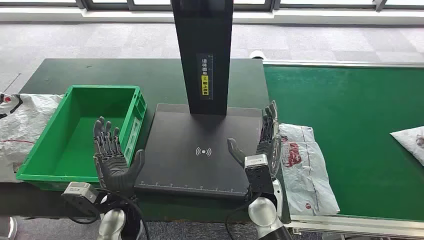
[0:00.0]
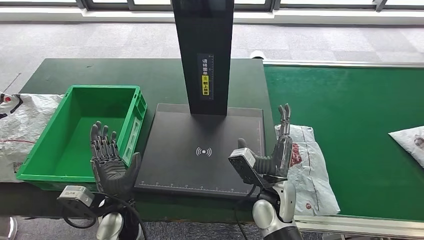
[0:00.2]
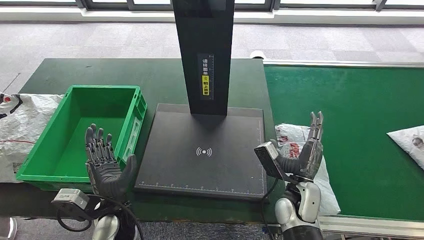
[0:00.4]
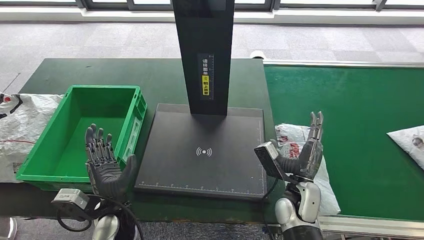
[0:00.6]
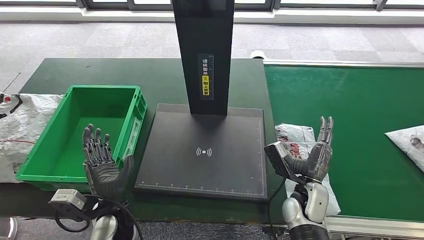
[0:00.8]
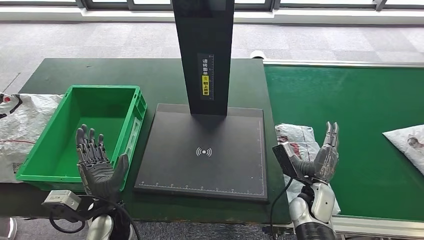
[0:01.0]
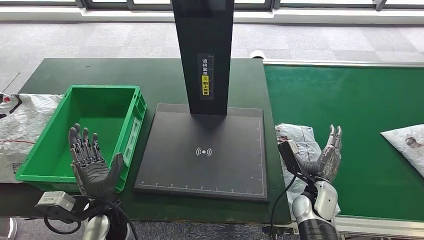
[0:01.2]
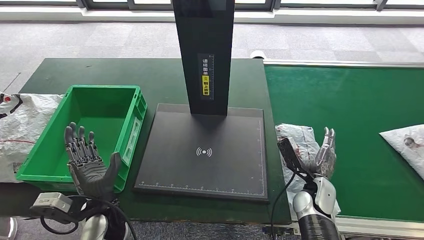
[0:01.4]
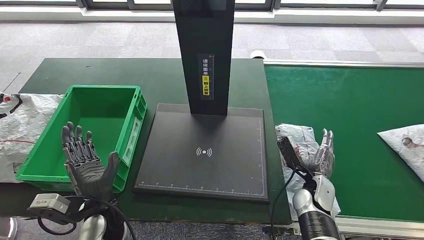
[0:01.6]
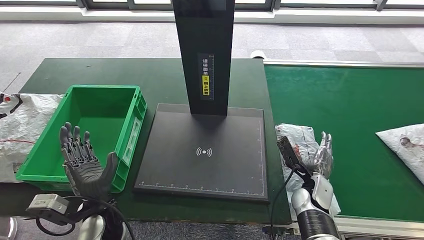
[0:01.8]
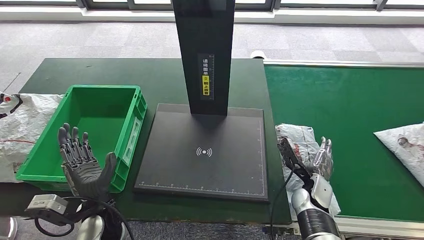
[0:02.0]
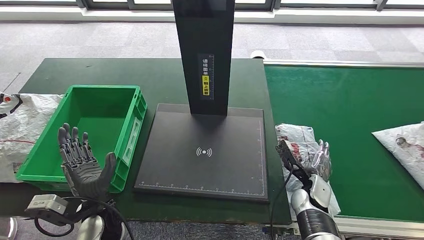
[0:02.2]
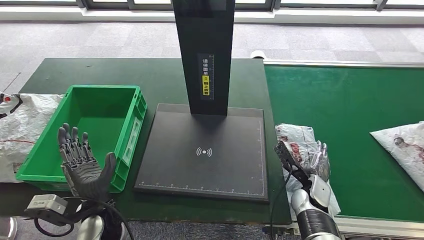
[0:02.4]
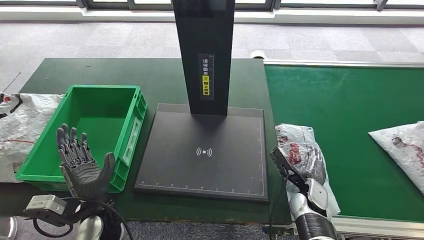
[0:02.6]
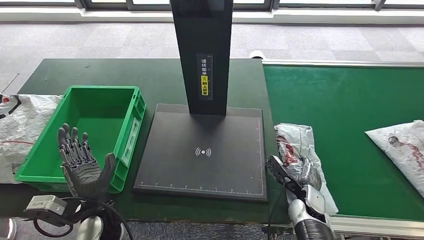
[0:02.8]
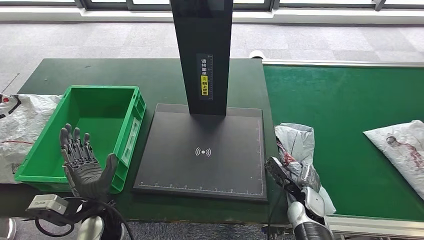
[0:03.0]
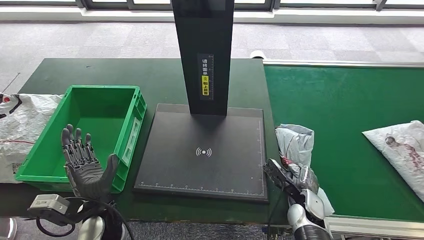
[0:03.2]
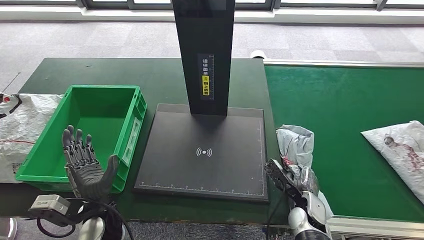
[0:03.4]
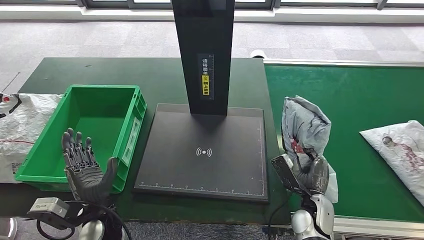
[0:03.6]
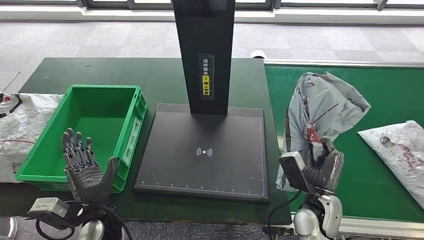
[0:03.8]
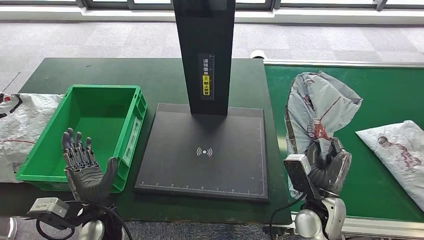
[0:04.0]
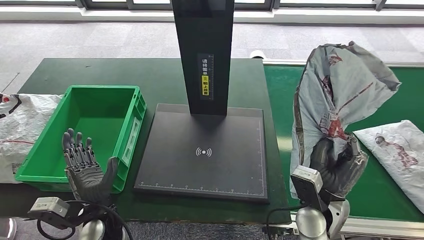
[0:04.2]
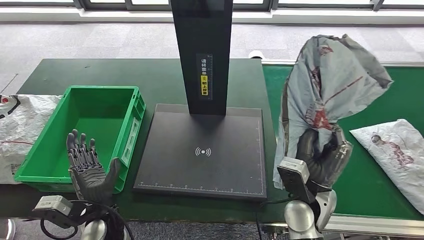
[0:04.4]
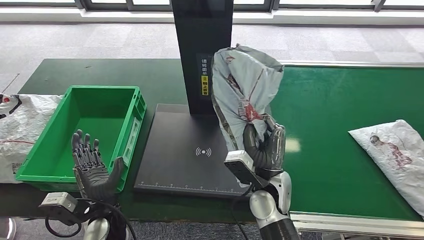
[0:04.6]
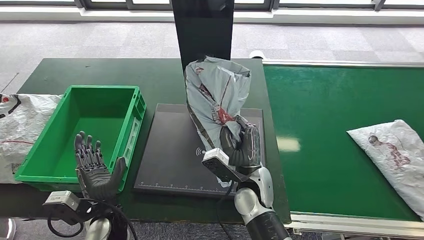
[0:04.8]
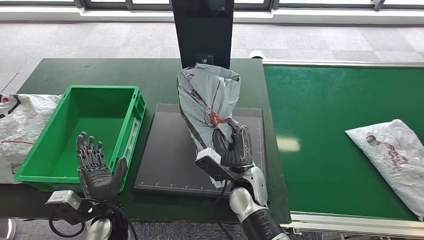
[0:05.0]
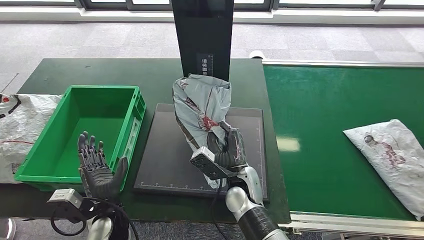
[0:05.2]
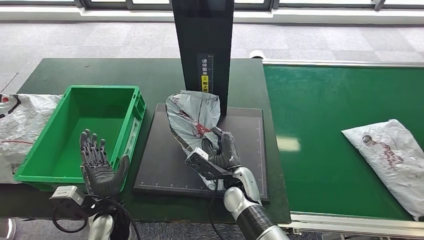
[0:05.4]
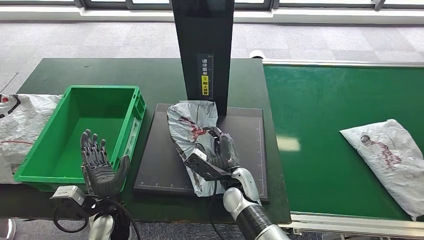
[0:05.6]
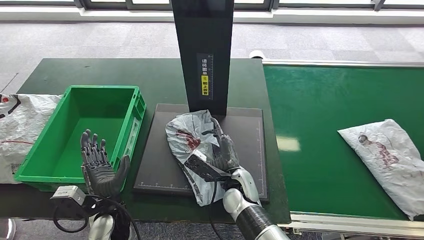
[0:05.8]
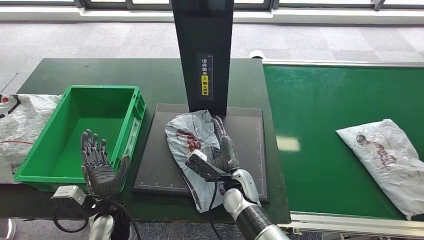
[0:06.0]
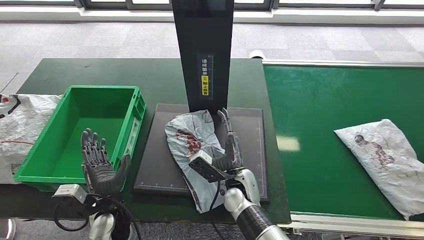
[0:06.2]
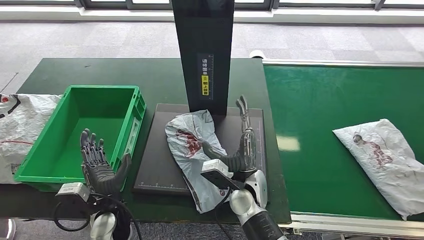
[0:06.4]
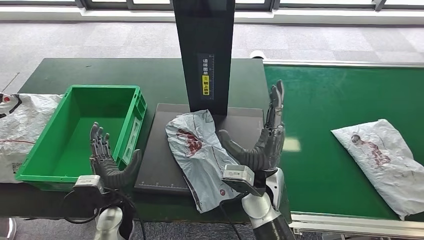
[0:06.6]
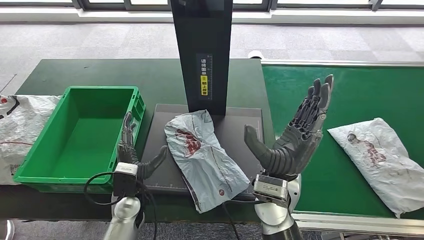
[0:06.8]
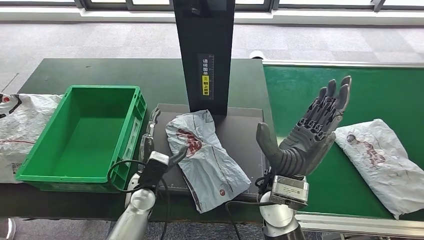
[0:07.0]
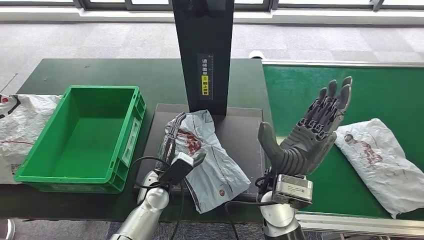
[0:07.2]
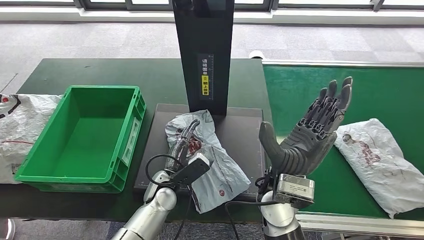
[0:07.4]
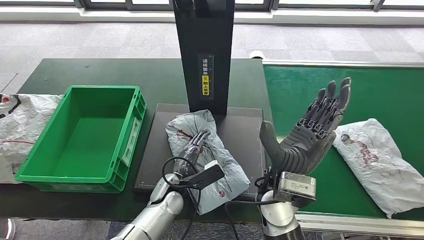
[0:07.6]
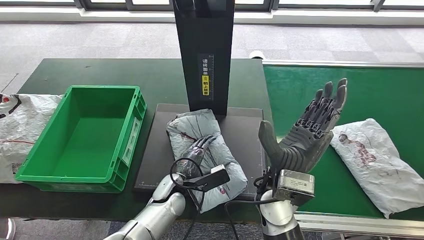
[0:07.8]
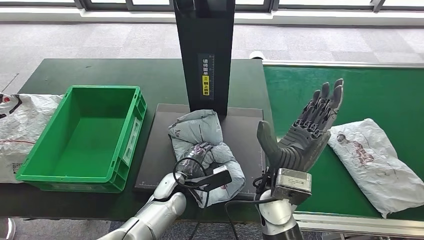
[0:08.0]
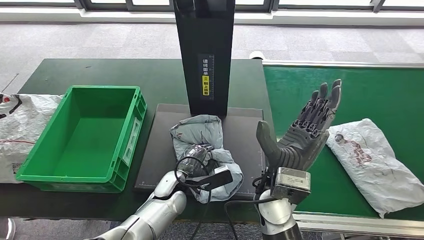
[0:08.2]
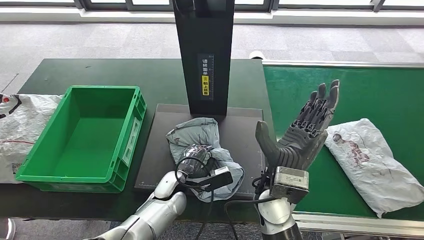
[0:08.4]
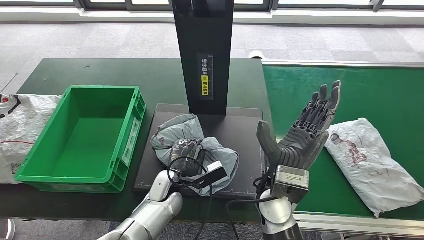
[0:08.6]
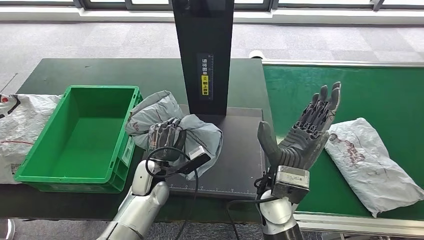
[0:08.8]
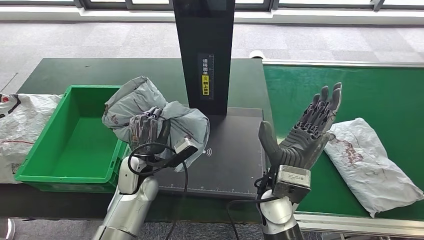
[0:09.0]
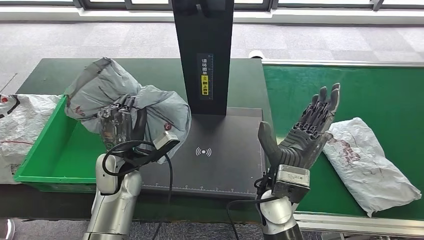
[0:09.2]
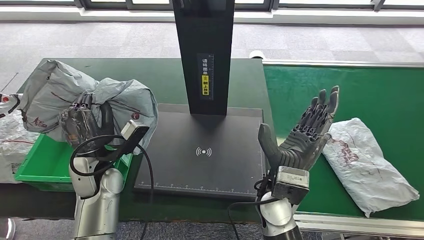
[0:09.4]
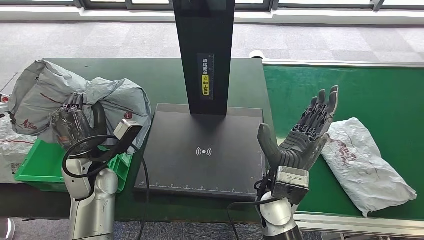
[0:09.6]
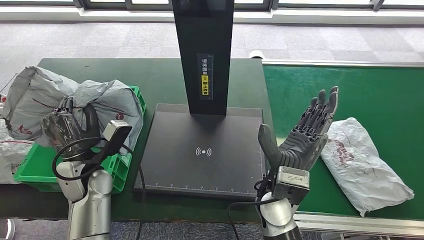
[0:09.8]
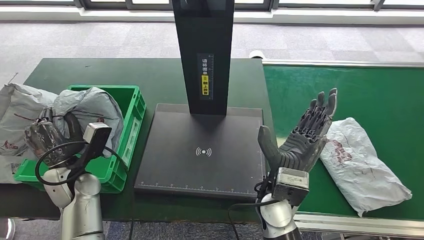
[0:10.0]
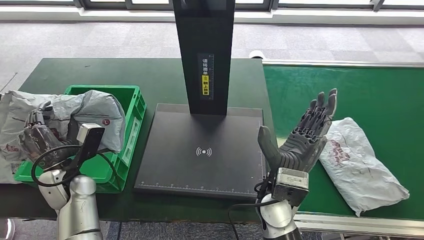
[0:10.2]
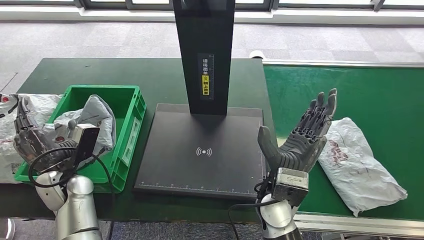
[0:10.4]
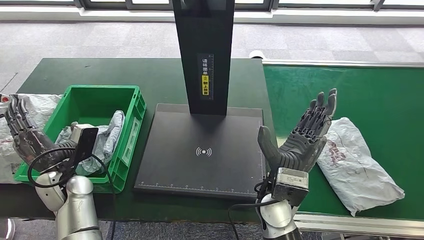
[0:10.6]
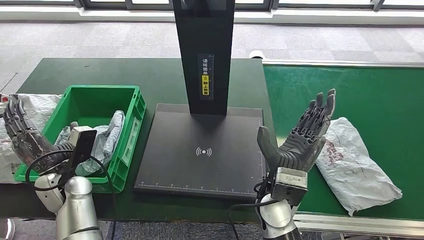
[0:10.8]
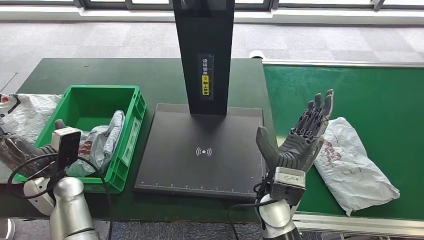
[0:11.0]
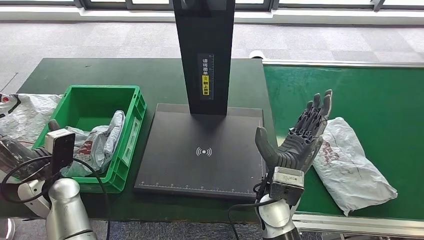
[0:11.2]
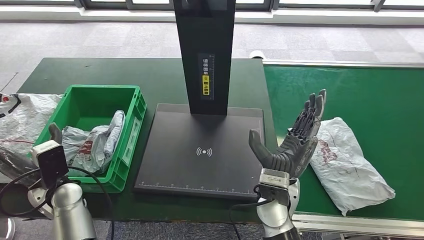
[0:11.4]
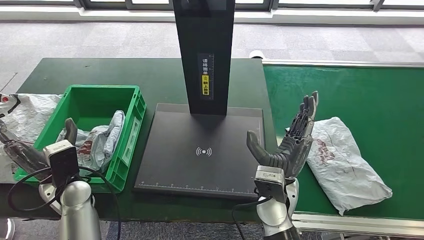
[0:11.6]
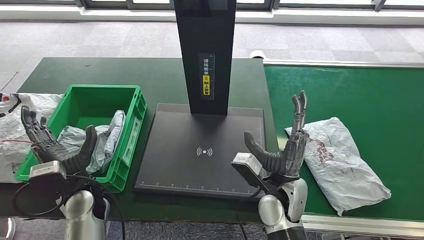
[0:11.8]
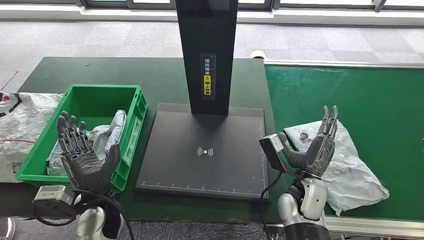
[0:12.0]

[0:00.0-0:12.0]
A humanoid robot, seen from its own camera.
Step, 0:00.0 to 0:04.0: Take the parcel off the conveyor belt.
Step, 0:04.4 to 0:06.8: Place the parcel onto the inbound machine.
Step, 0:07.0 to 0:09.0: Pick up the parcel from the inbound machine.
Step, 0:09.2 to 0:11.4: Put the parcel inside the courier box.
0:01.6 to 0:03.0: The right hand moves about 5 cm.
0:03.0 to 0:04.4: The right hand goes approximately 15 cm upward.
0:06.0 to 0:07.6: The left hand heads to the right and forward, covering some 15 cm, while the right hand travels upward and to the right by roughly 15 cm.
0:07.6 to 0:09.0: The left hand heads upward and to the left, covering some 10 cm.

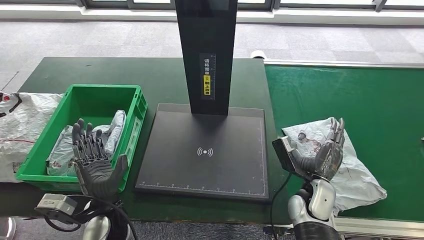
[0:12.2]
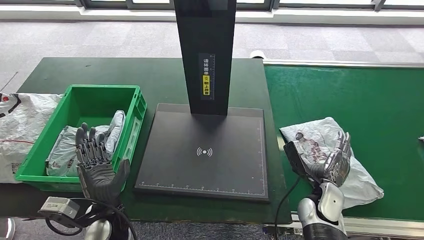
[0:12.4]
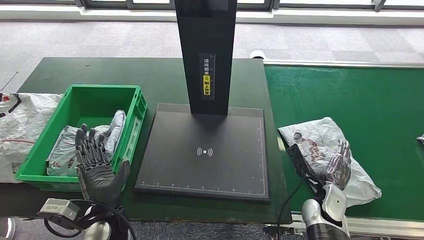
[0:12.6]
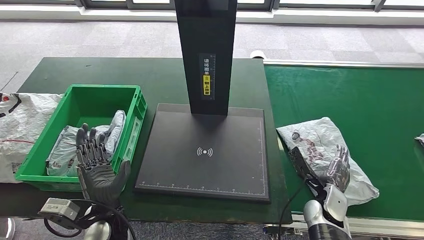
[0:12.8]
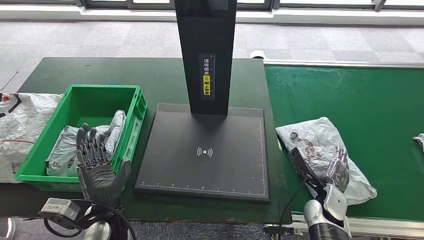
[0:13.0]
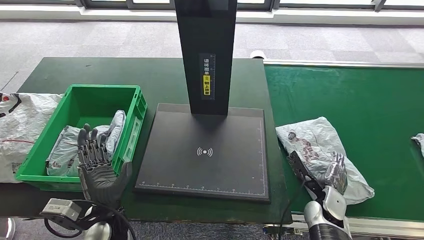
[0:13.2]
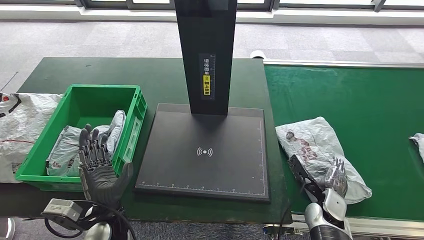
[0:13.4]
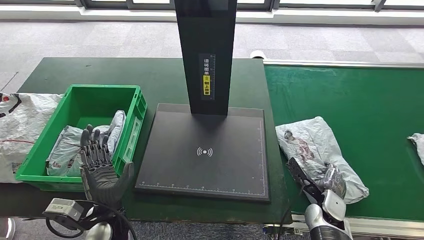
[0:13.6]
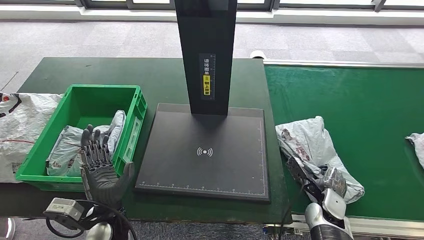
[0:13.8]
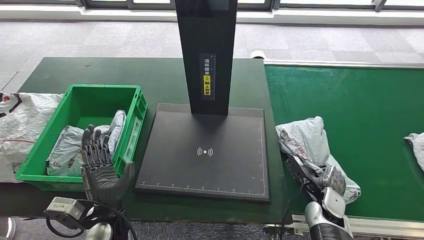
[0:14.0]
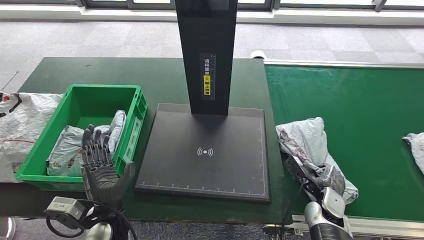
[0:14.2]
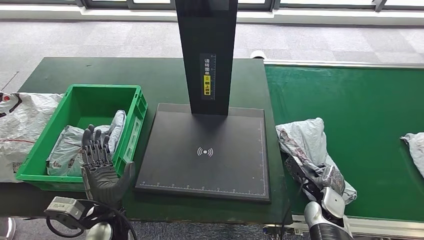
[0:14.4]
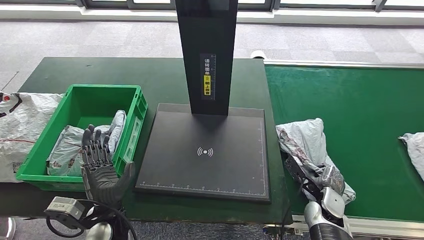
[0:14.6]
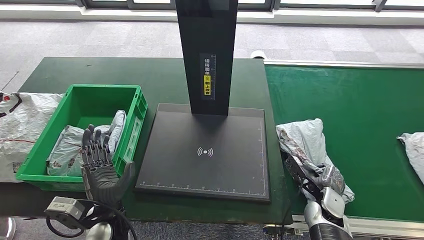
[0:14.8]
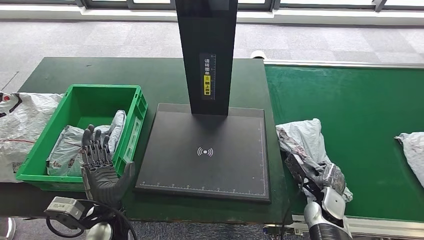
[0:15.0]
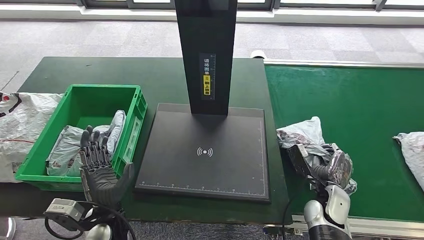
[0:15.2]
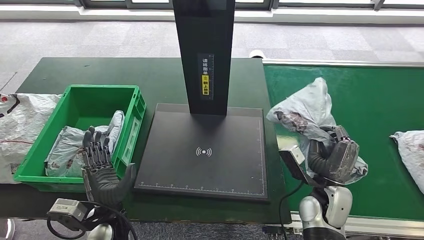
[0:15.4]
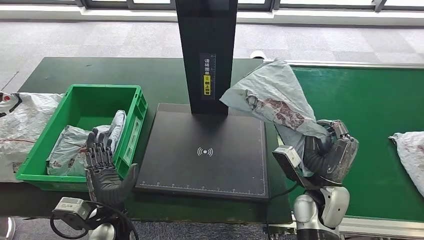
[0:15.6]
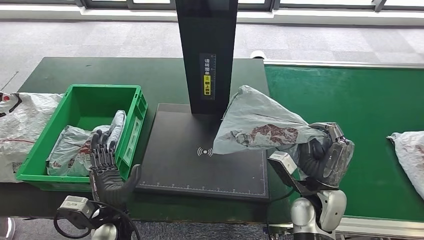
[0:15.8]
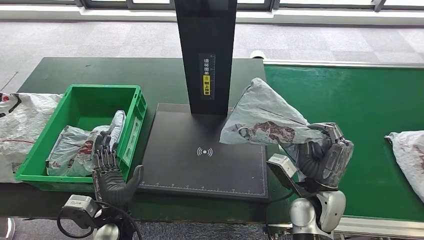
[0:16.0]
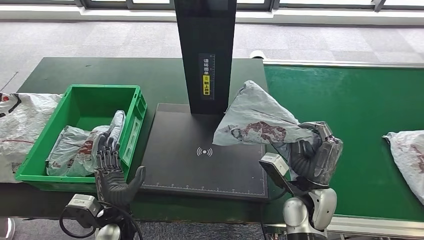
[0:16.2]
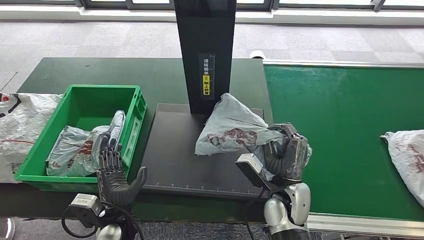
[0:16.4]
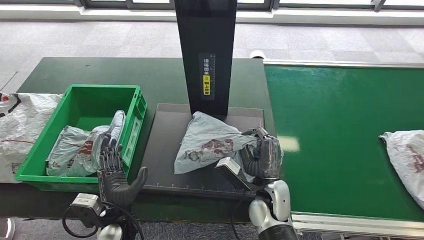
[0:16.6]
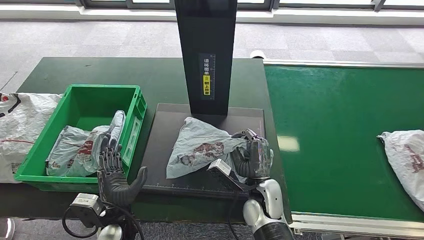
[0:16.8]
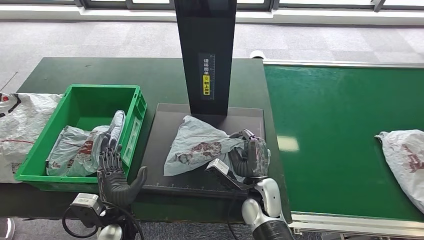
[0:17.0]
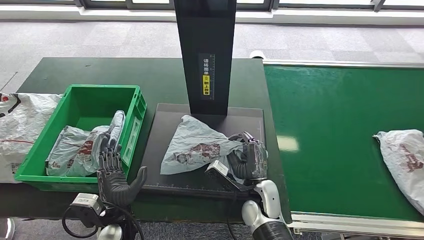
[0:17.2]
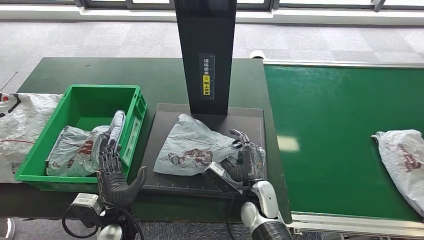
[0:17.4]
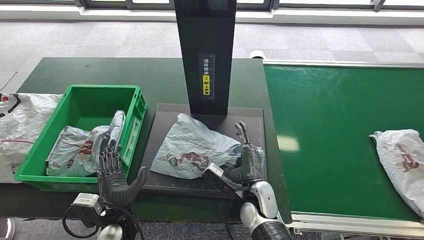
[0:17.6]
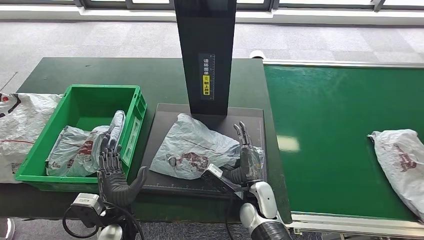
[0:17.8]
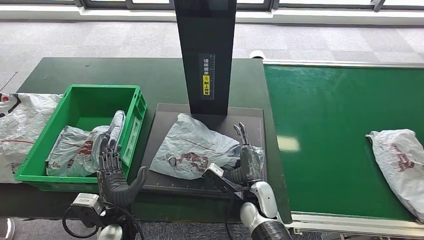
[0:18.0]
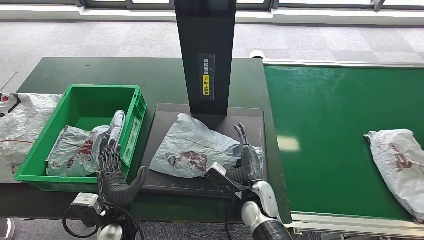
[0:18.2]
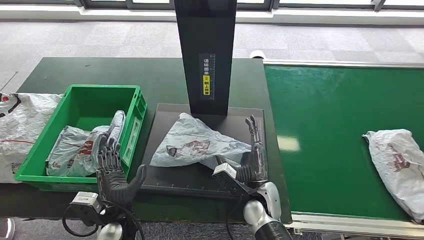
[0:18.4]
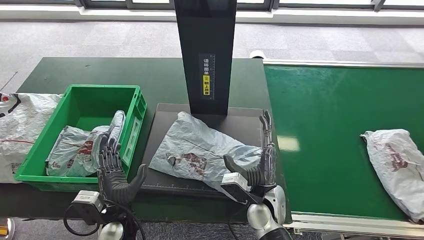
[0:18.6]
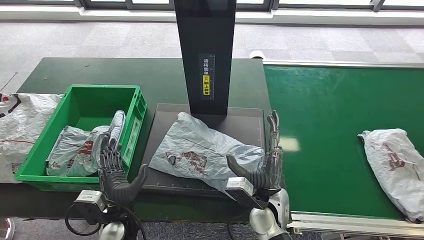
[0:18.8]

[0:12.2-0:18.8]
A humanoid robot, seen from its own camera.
Step, 0:12.2 to 0:16.4: Pick up the parcel from the conveyor belt.
0:12.2 to 0:13.8: The right hand shifts approximately 10 cm downward and to the right.
0:13.8 to 0:15.4: The right hand is displaced upward by some 10 cm.
